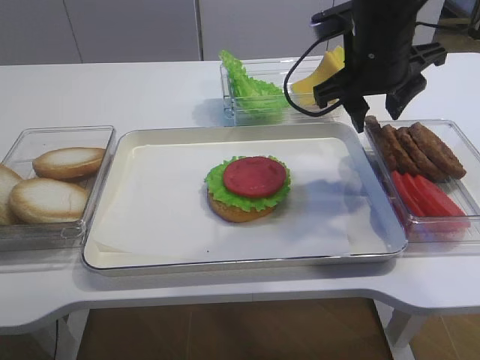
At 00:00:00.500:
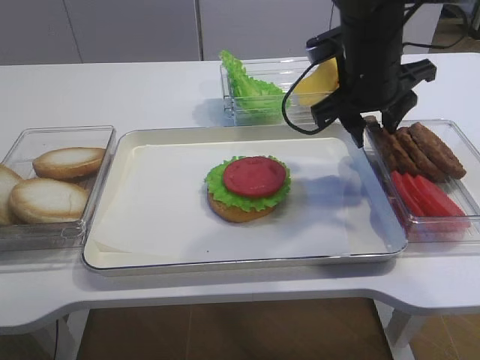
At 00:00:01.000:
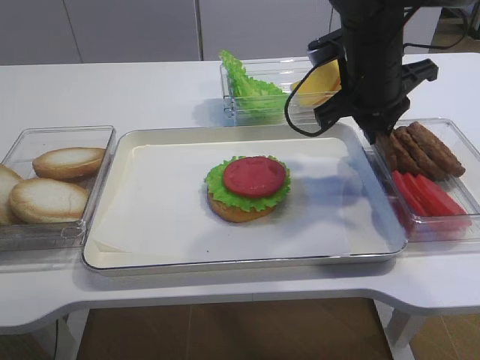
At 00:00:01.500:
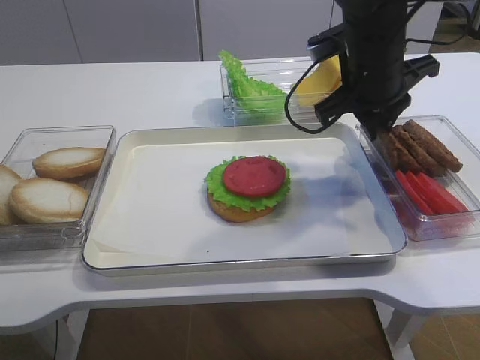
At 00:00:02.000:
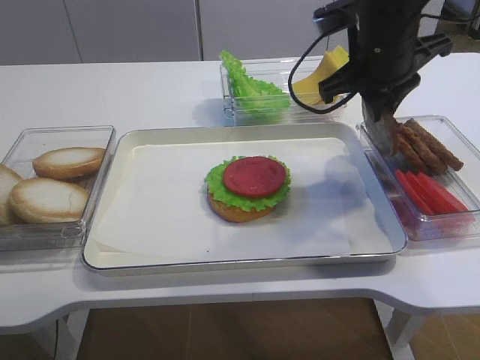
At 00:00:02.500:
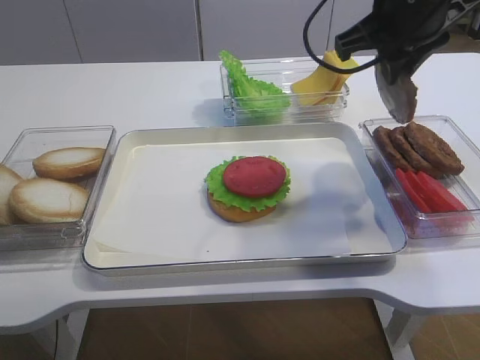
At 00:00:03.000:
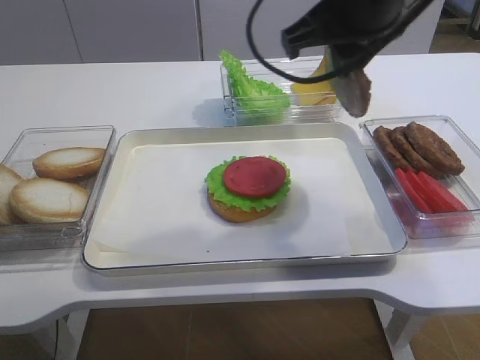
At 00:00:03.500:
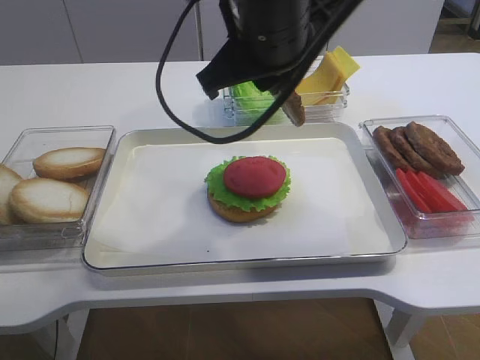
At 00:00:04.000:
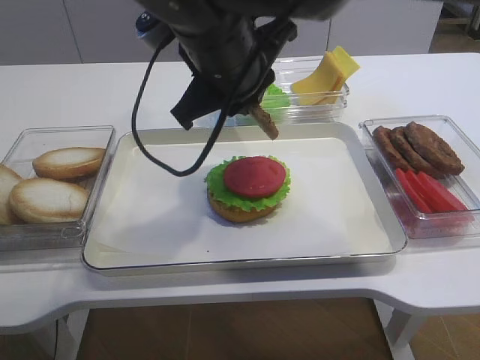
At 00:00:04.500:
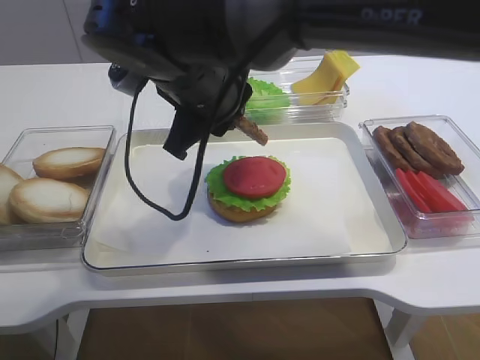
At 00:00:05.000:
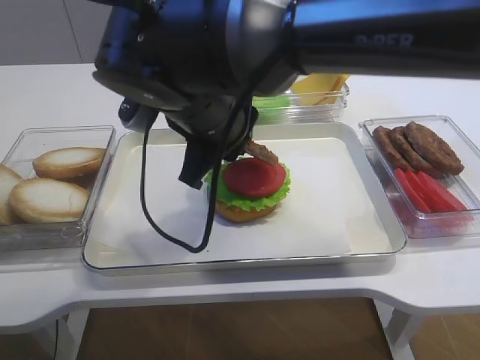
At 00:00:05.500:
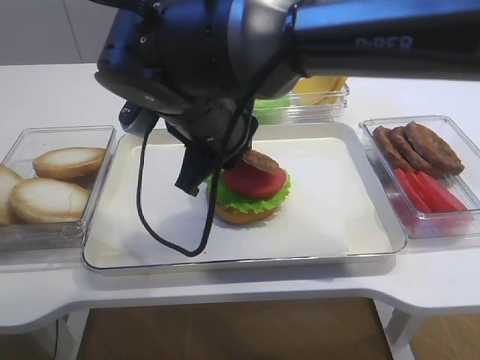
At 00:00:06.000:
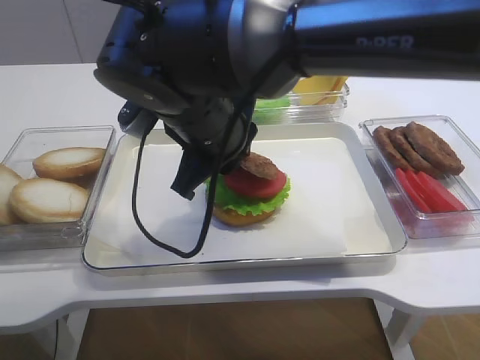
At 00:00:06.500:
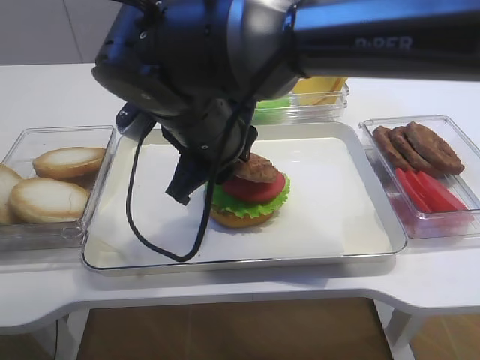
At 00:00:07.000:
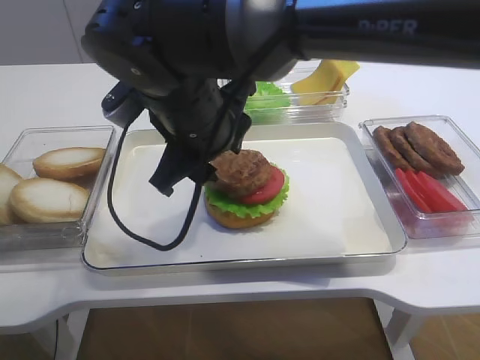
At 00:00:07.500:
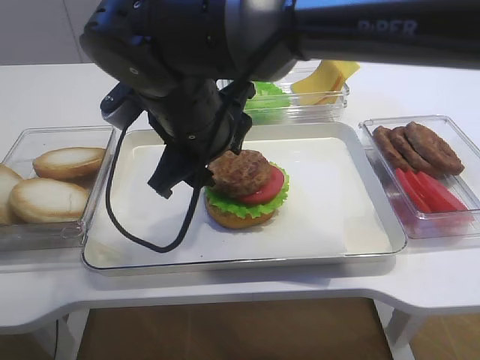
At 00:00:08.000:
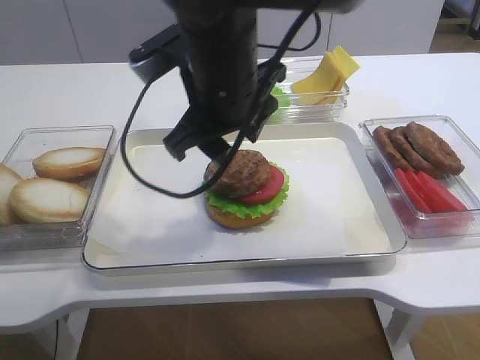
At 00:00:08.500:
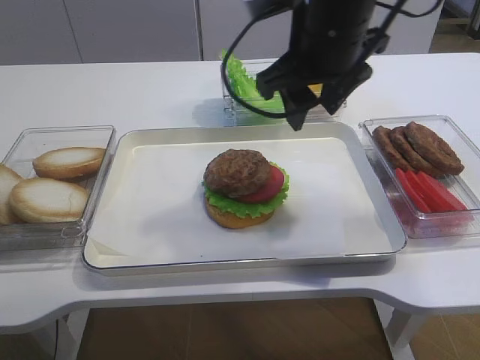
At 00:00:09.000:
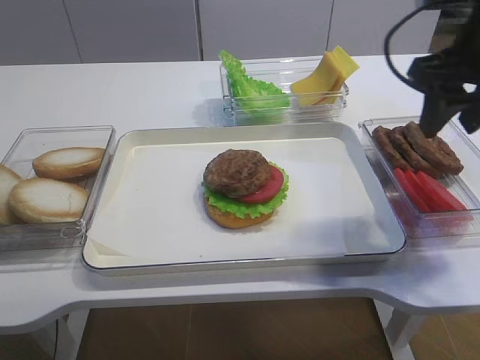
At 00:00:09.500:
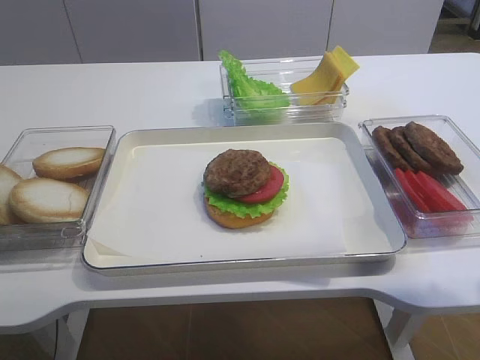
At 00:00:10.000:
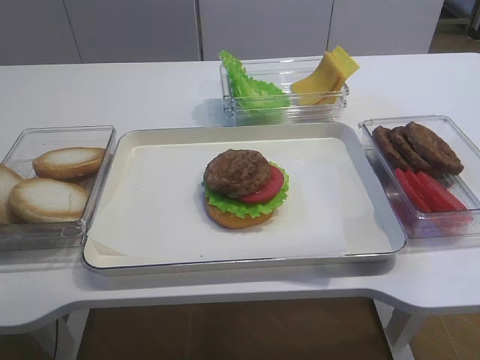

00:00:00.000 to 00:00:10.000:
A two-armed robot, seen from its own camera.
Step, 00:00:00.000 to 00:00:02.500: Pick up the cutlet with the right gripper.
Step, 00:00:03.000 to 00:00:08.000: Place the cutlet on the tomato slice with the right gripper.
00:00:00.000 to 00:00:02.000: The right gripper closes its fingers.
00:00:02.000 to 00:00:04.000: The right gripper shifts roughly 15 cm to the left and backward.
00:00:04.000 to 00:00:06.000: The right gripper shifts approximately 5 cm downward.
00:00:06.000 to 00:00:08.000: The right gripper opens up.
00:00:08.000 to 00:00:10.000: The right gripper goes approximately 30 cm to the right.

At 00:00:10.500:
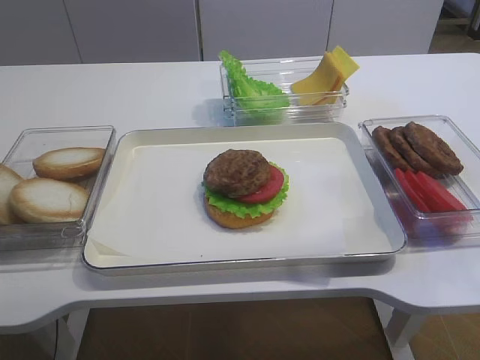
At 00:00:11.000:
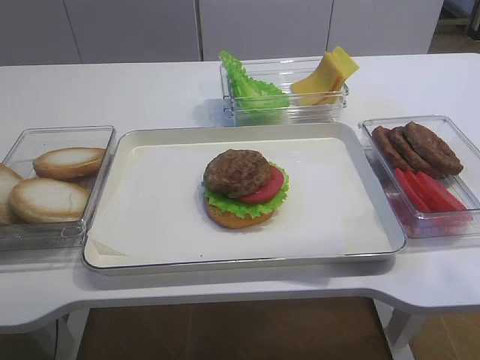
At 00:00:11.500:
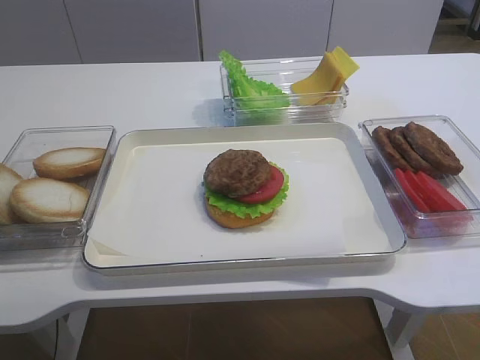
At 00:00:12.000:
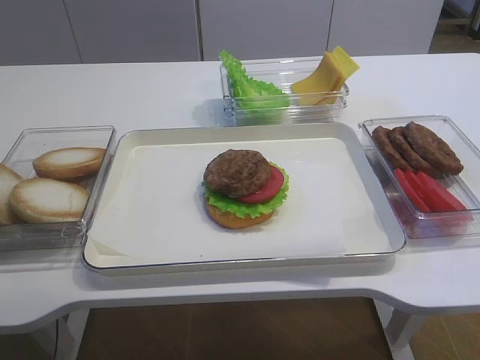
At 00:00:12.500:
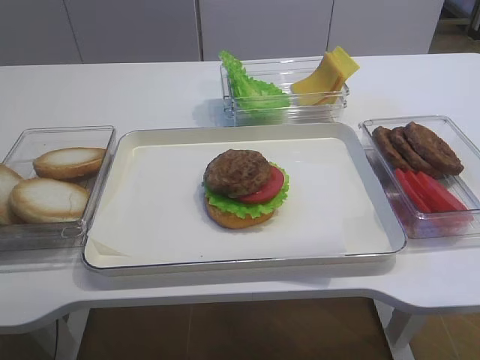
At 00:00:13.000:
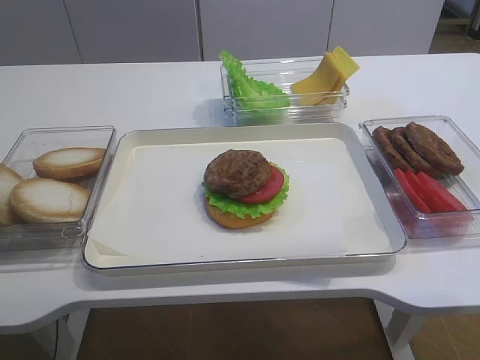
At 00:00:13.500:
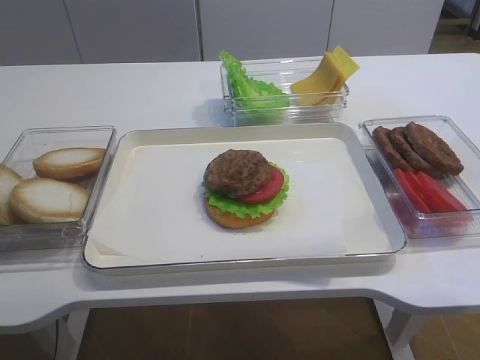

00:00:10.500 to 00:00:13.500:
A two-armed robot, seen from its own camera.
00:00:10.500 to 00:00:12.000: The right gripper is displaced downward and backward by approximately 15 cm.
